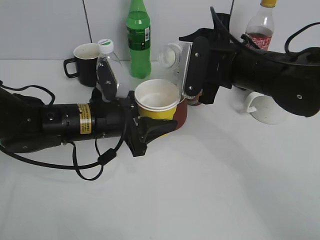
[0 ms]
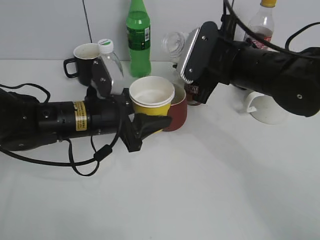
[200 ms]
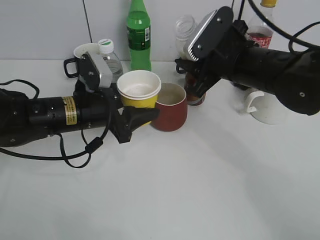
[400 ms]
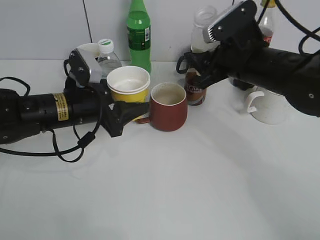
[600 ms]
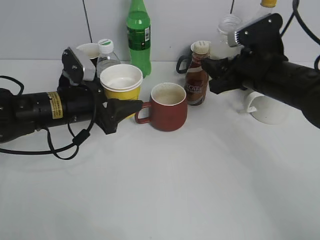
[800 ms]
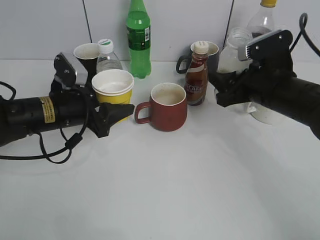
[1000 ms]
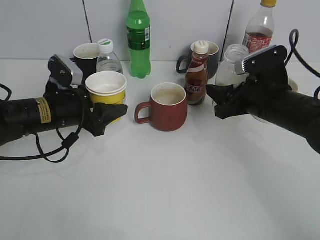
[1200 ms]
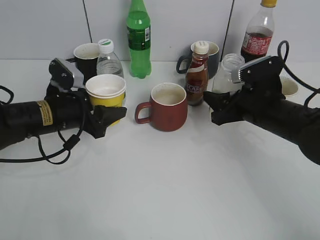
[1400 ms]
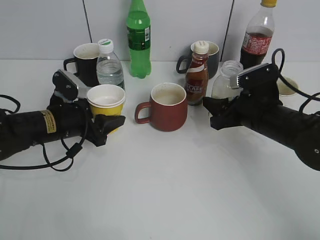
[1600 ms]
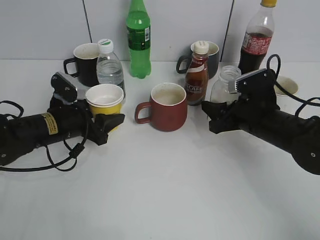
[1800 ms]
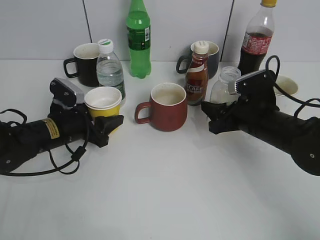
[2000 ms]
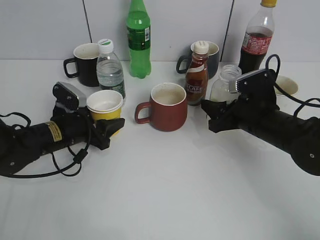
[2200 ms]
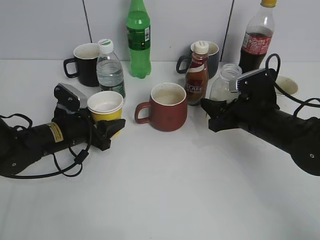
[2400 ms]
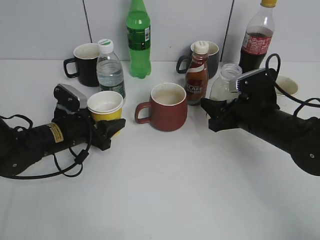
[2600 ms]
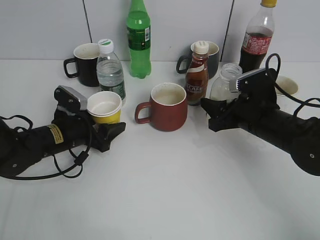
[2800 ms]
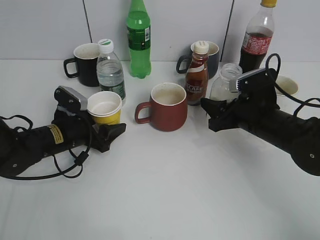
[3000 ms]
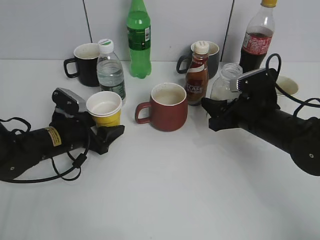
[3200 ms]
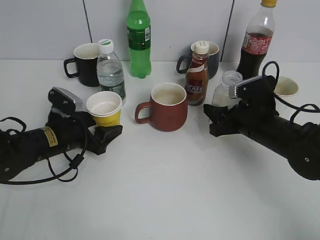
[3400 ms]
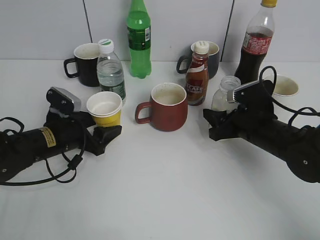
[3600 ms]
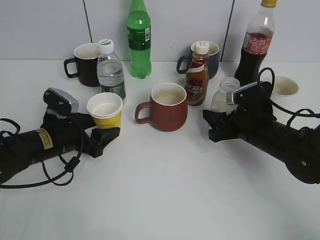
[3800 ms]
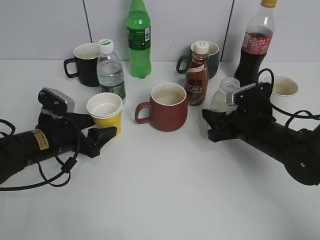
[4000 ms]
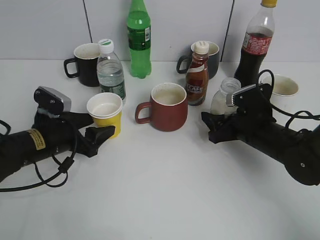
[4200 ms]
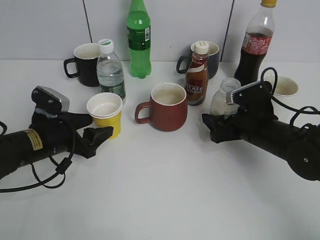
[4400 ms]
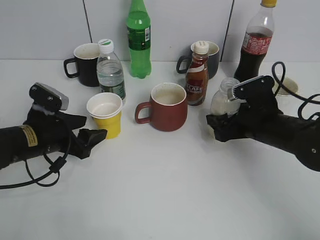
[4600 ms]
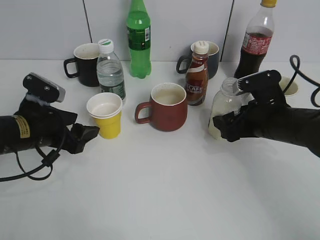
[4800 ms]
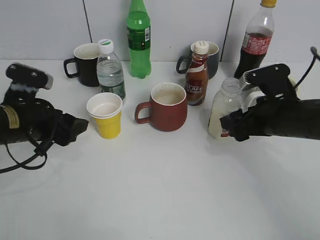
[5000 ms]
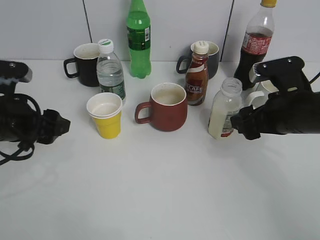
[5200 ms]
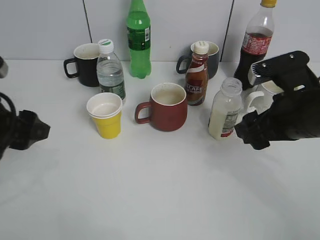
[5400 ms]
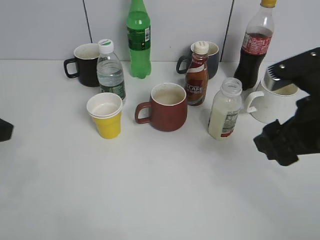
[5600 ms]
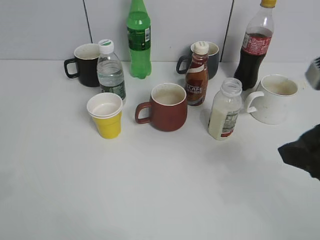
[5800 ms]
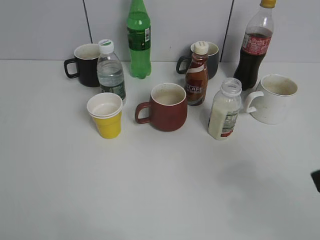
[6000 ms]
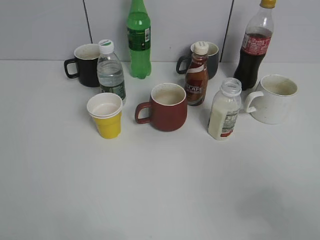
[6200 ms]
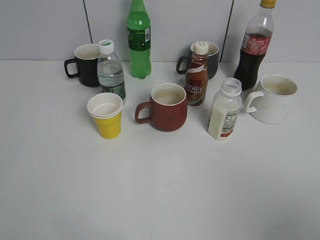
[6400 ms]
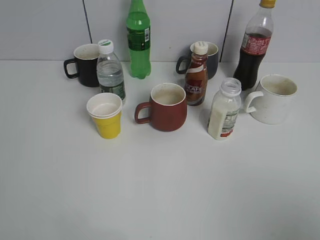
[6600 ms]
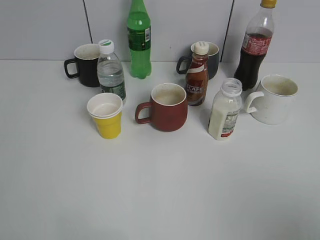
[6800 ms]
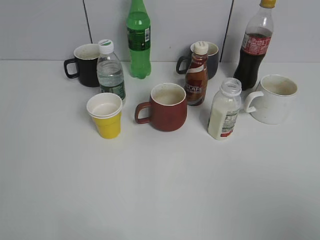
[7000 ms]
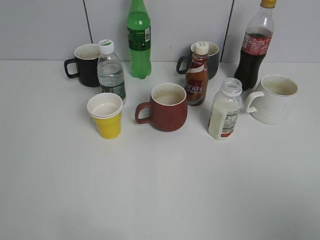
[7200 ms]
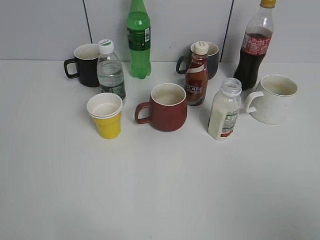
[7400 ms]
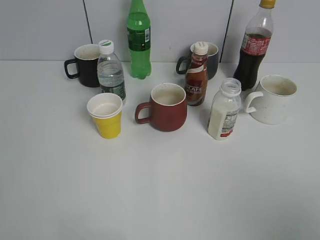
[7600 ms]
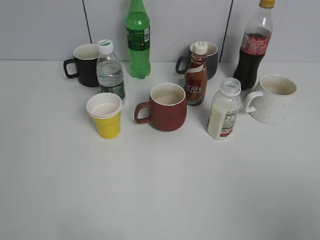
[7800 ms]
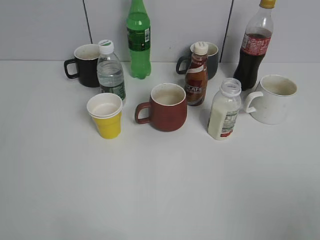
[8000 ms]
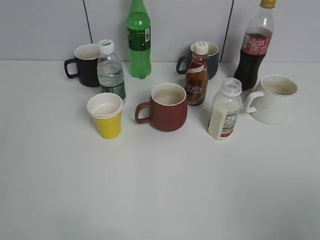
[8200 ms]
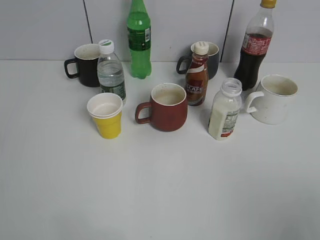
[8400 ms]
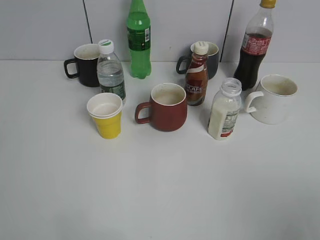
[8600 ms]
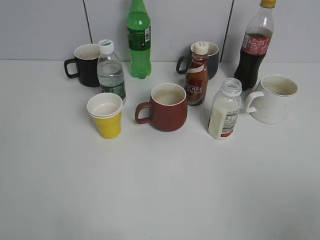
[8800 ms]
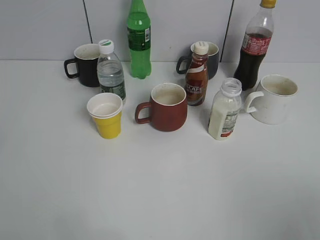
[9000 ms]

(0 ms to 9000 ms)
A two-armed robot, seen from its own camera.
Step, 200 ms - 5200 ms: Place the yuexian Milk bottle on the table with right gripper.
0 ms - 1600 ms: The right gripper heads downward and to the right, covering some 10 cm. The left gripper goes some 10 cm to the left.
1600 ms - 3000 ms: The left gripper opens up.
3000 ms - 4400 ms: The right gripper opens. Meanwhile the left gripper moves about 5 cm.
4400 ms - 6000 ms: The right gripper is displaced upward and backward by approximately 30 cm, while the left gripper shifts some 35 cm backward, upward and to the left.
6000 ms - 7600 ms: The right gripper travels backward and to the right by roughly 15 cm. The left gripper heads backward, covering some 5 cm.

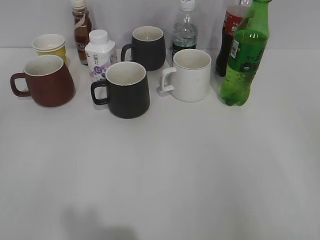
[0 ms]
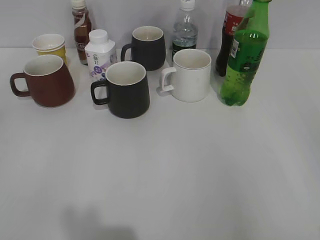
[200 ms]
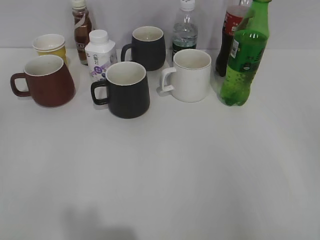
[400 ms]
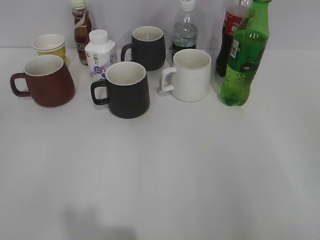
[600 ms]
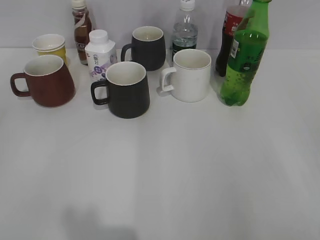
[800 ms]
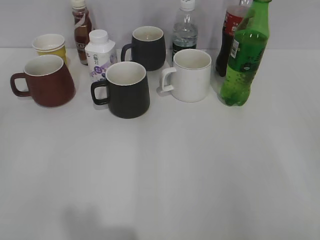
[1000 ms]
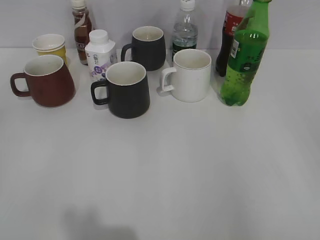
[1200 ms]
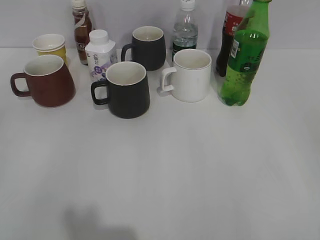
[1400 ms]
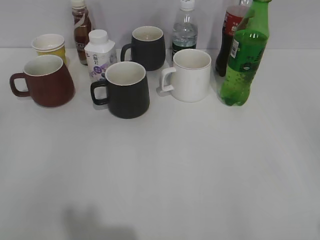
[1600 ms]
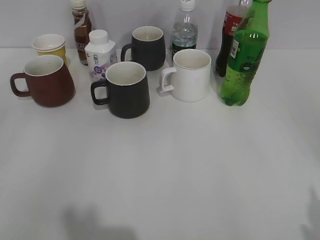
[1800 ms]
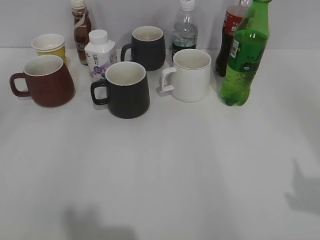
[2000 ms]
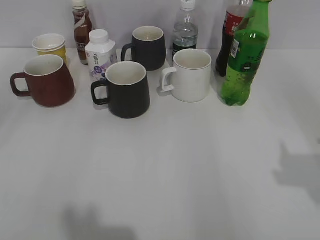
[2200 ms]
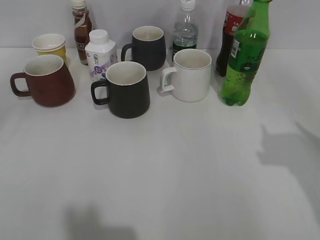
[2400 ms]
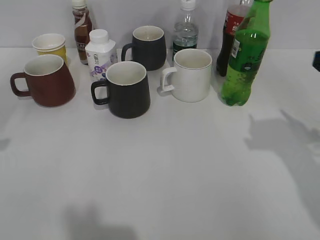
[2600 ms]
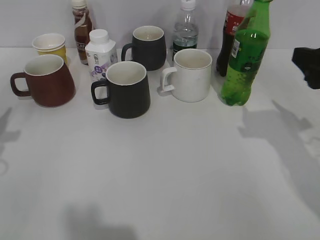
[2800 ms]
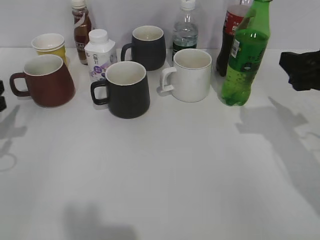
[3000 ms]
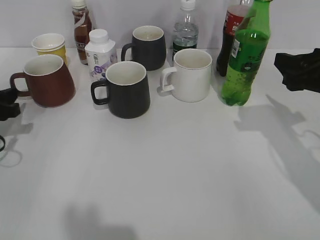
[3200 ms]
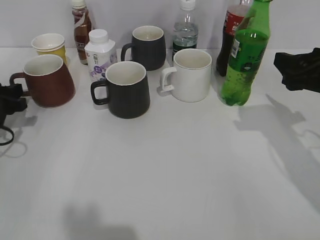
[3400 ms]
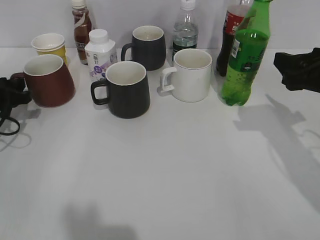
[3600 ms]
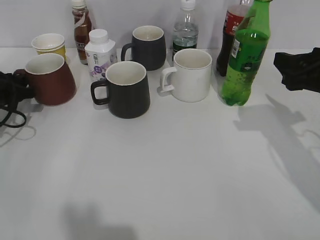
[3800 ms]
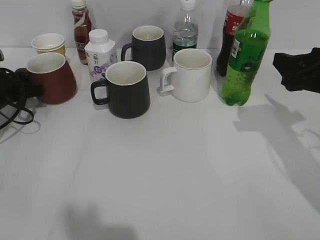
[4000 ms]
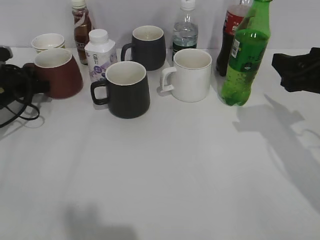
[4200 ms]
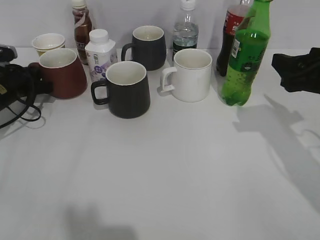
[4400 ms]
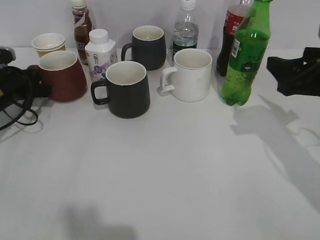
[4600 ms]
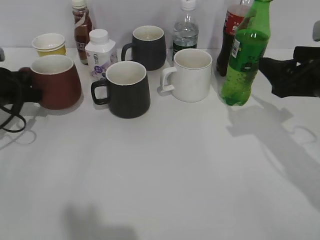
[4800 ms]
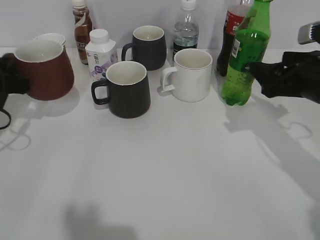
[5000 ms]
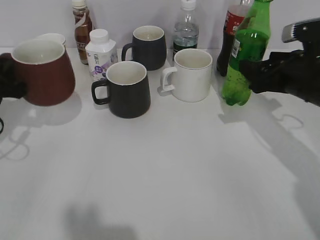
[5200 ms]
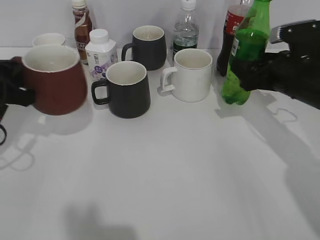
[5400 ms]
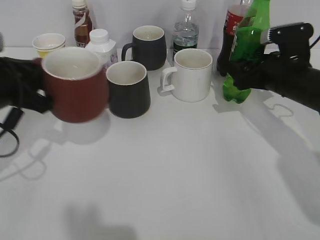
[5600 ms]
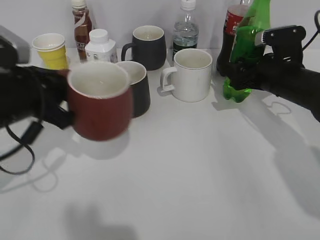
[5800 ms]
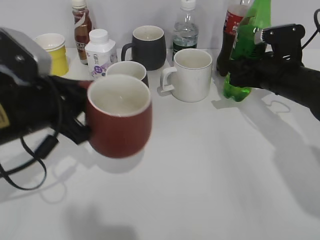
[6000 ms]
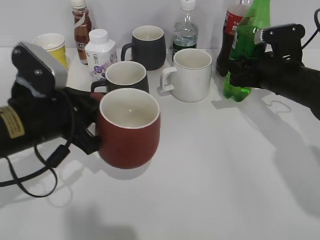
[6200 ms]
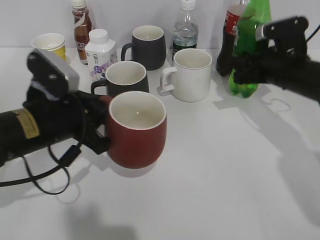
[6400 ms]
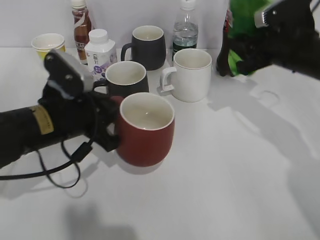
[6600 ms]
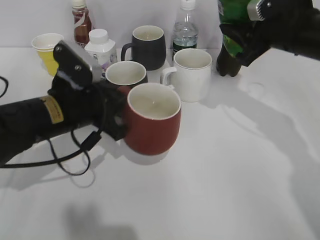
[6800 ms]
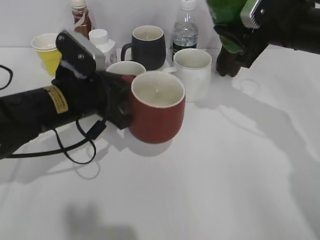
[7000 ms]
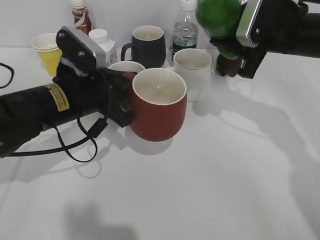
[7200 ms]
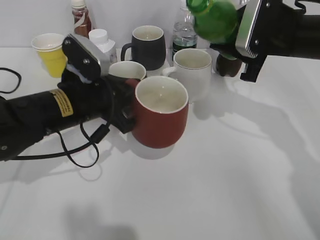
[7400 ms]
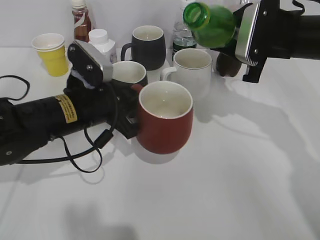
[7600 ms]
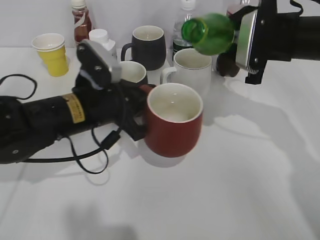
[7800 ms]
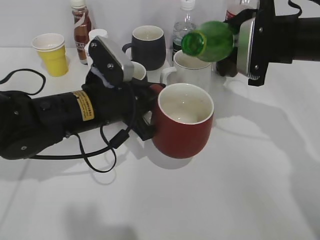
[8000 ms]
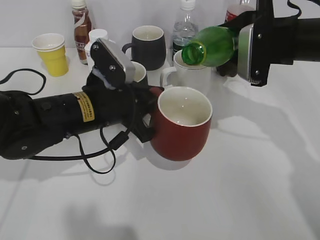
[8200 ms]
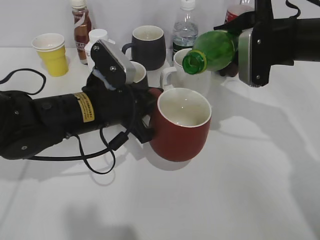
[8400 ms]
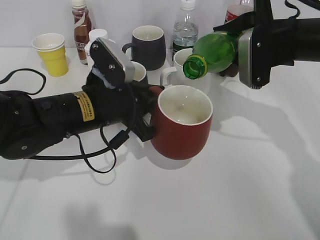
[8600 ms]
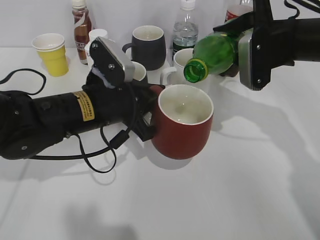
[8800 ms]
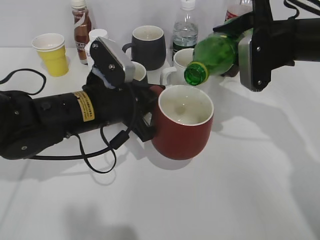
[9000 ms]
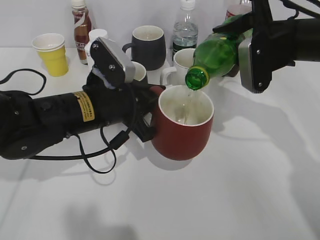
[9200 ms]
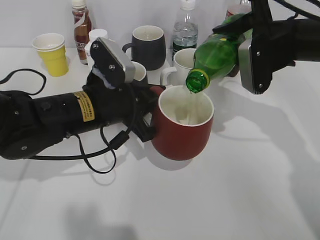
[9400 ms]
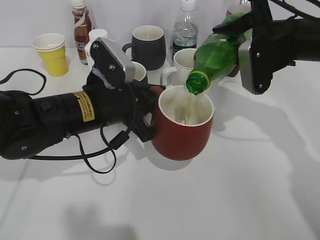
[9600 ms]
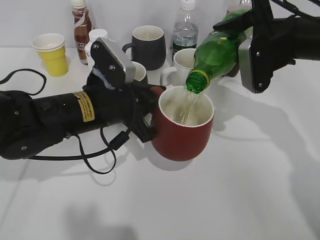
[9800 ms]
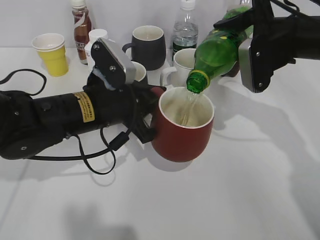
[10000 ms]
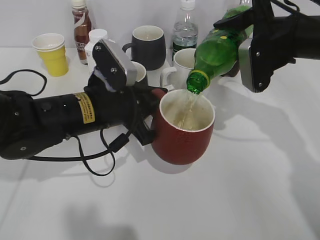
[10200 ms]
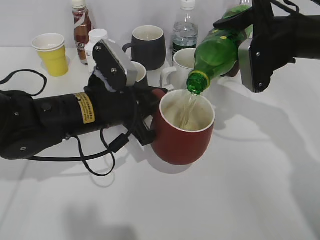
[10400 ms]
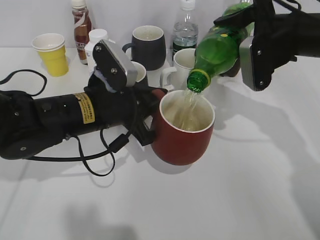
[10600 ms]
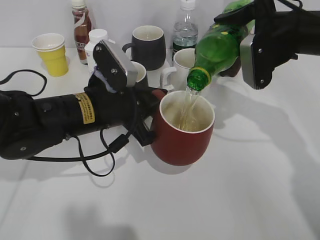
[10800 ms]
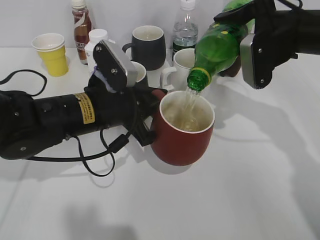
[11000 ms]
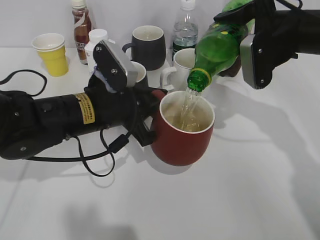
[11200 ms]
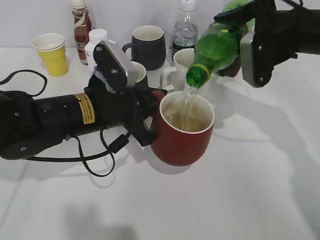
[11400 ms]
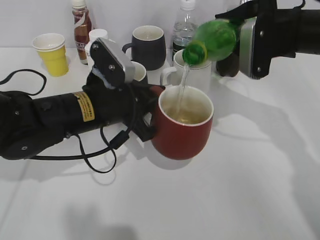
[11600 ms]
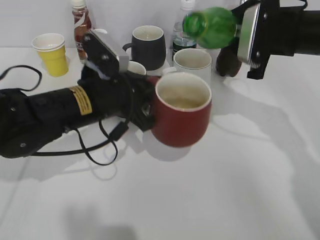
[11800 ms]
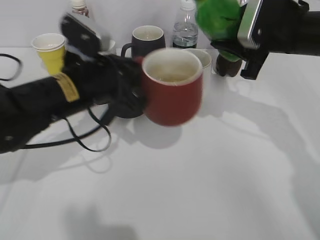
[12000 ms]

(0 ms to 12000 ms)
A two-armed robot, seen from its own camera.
Step, 1600 ms - 4000 ms: Grasp the red cup with left gripper.
Step, 4200 ms - 4400 ms: Lift the red cup with left gripper.
Step, 4600 ms - 6000 ms: Grasp the bottle with sprite with right gripper.
Step, 6400 ms - 11800 ms: Pour the sprite from bottle to cup with right gripper.
1600 ms - 3000 ms: The right gripper heads forward, covering about 25 cm, while the left gripper travels forward and downward by some 25 cm, and opens.
3000 ms - 4400 ms: The left gripper shifts about 15 cm forward and downward, and closes up.
4400 ms - 6000 ms: The left gripper heads backward, to the right and upward, covering roughly 20 cm, while the right gripper goes some 15 cm forward and downward, and closes.
6000 ms - 7600 ms: The left gripper shifts roughly 10 cm to the right and forward. The right gripper moves upward, approximately 10 cm.
9000 ms - 10400 ms: The grippers make only small movements.

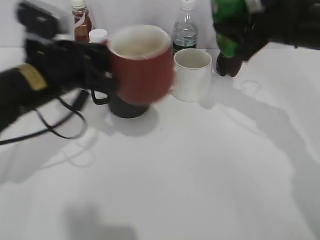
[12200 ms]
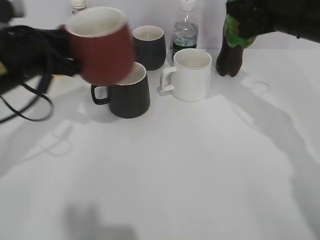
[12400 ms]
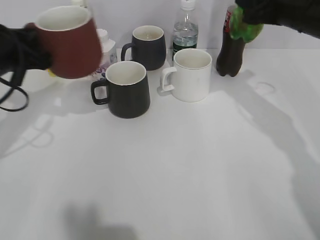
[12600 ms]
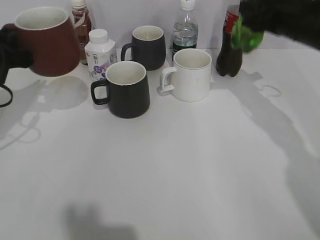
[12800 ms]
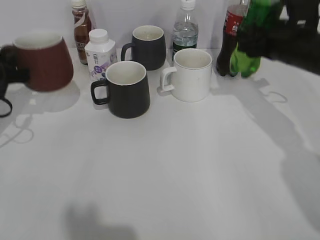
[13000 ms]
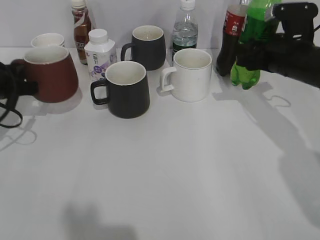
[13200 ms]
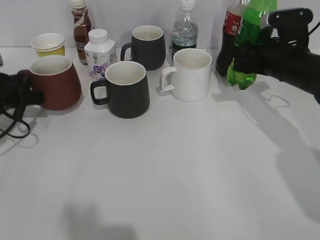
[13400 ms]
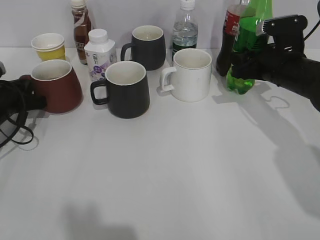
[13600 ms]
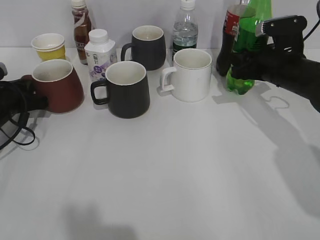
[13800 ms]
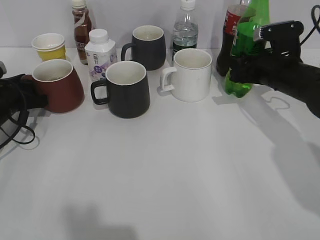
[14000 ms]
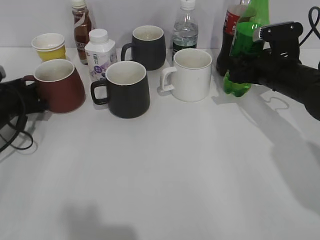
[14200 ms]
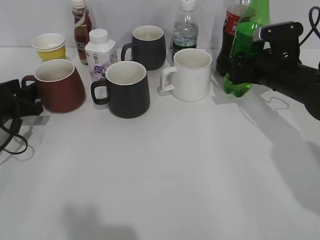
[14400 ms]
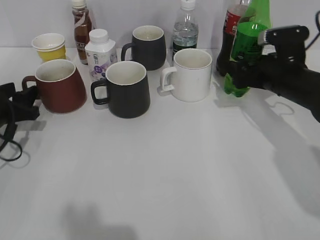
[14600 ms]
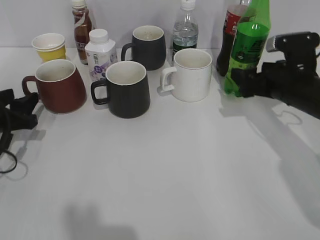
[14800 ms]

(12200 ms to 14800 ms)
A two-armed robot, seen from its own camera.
Step, 12200 ms - 12600 ms: Place the red cup on the table with left gripper.
Step, 12800 ms - 14600 ms: Place the sprite bottle on the table with right gripper.
12200 ms - 13400 ms: The left gripper shifts some 20 cm to the left, downward and forward. The right gripper is displaced downward by roughly 10 cm.
13400 ms - 14800 ms: The right gripper opens up; the left gripper heads backward, covering some 5 cm, and opens.
